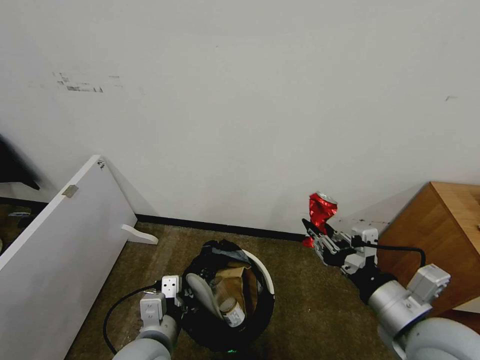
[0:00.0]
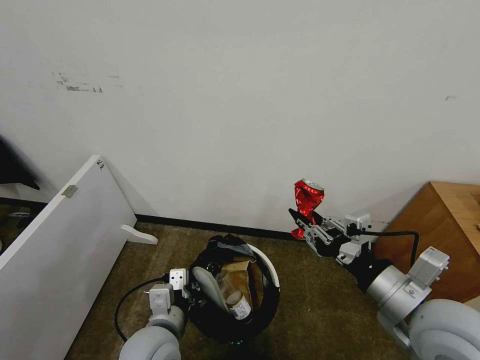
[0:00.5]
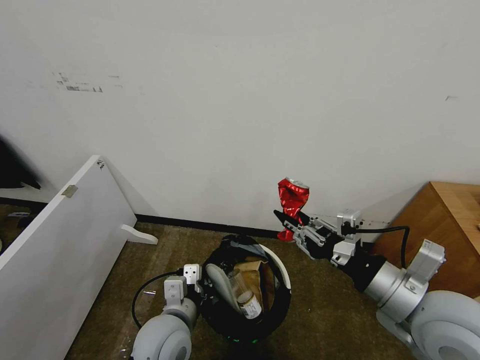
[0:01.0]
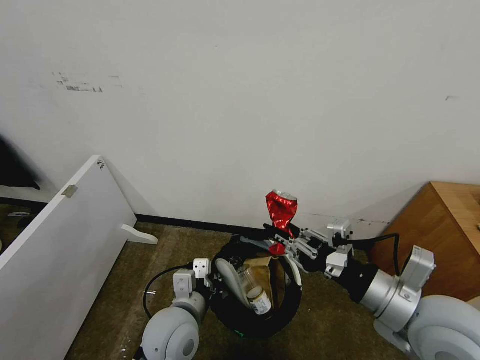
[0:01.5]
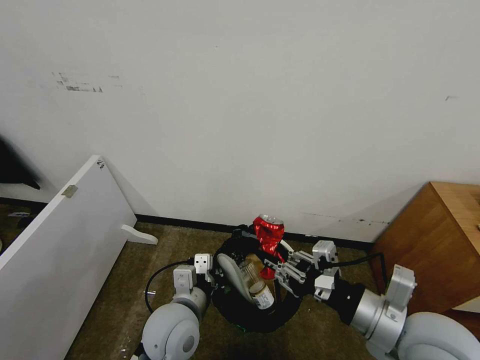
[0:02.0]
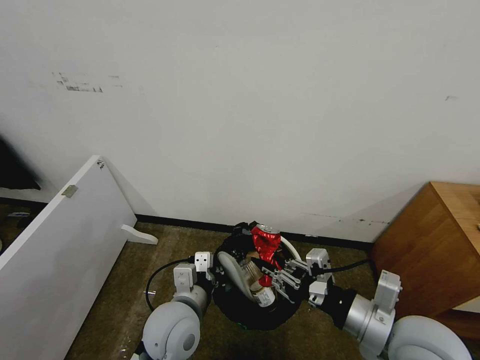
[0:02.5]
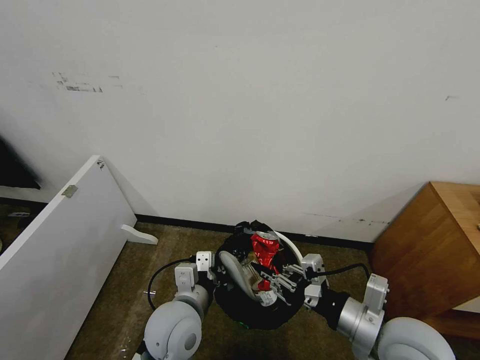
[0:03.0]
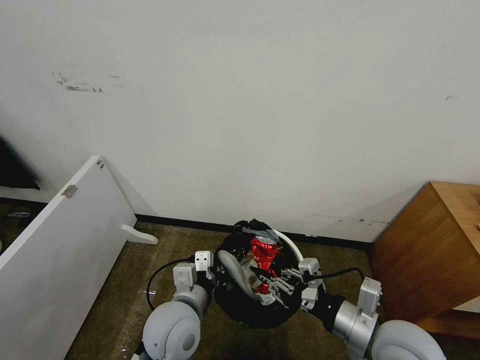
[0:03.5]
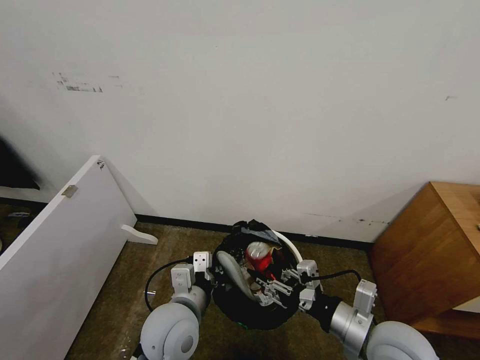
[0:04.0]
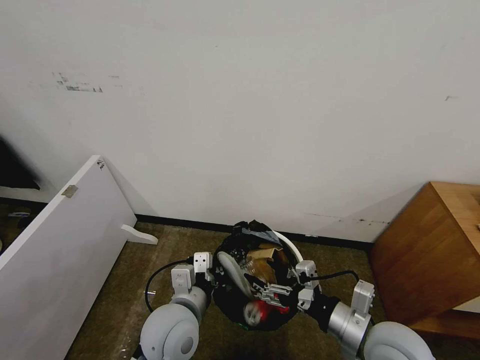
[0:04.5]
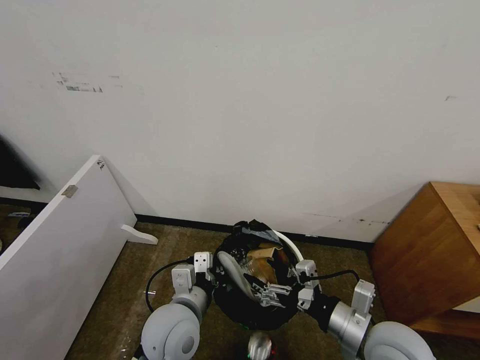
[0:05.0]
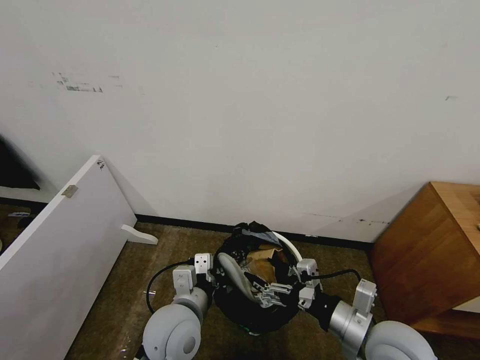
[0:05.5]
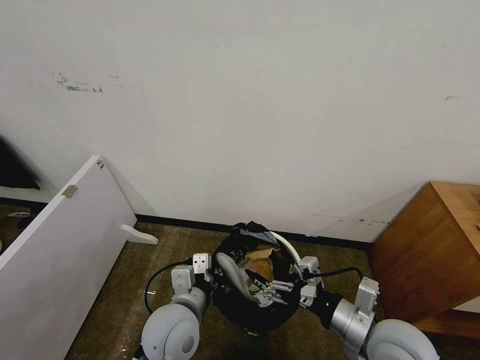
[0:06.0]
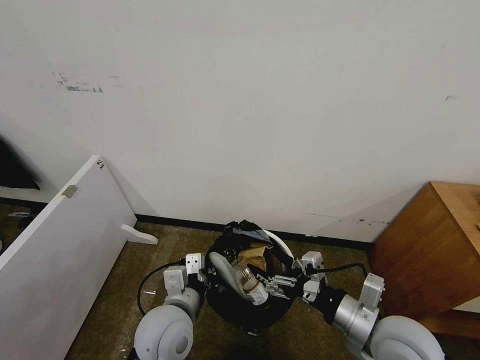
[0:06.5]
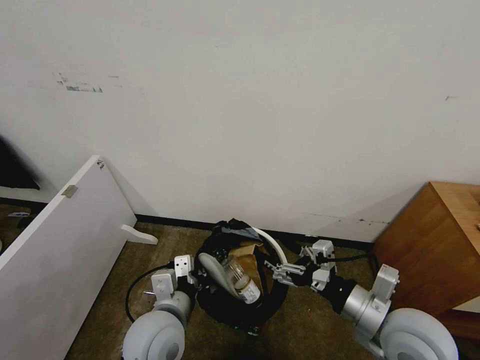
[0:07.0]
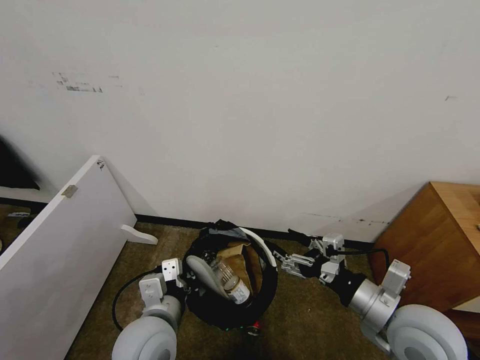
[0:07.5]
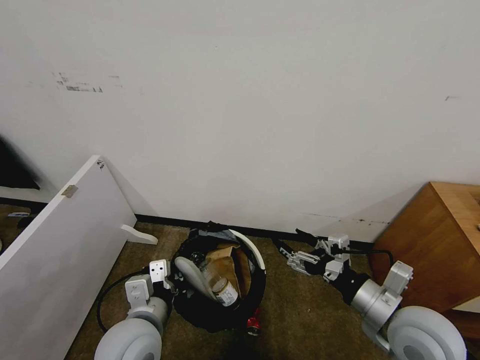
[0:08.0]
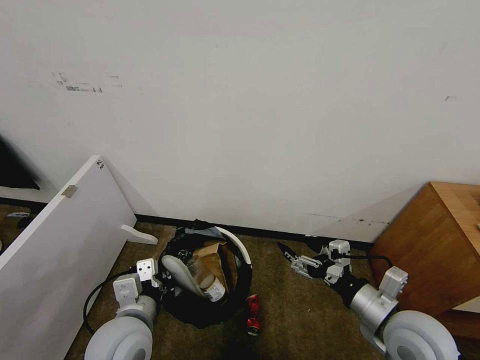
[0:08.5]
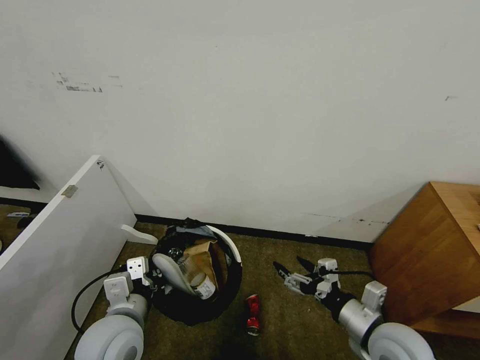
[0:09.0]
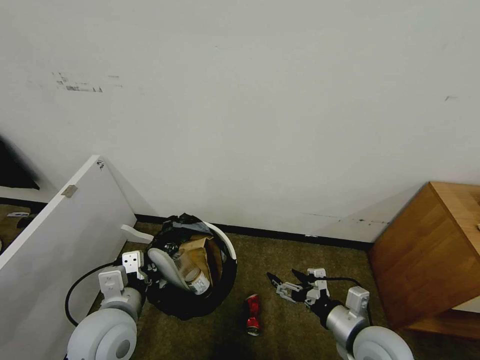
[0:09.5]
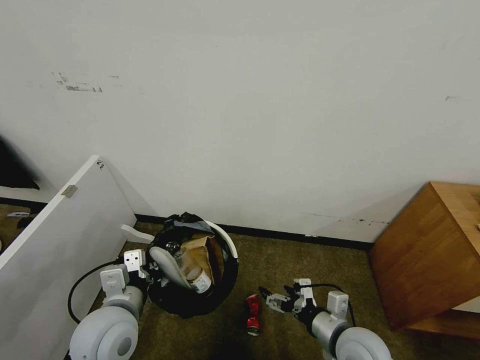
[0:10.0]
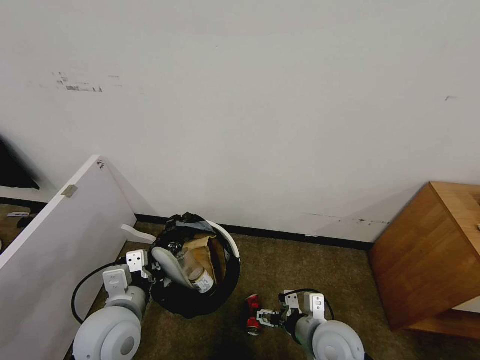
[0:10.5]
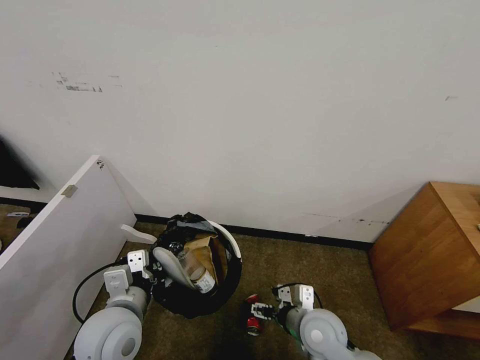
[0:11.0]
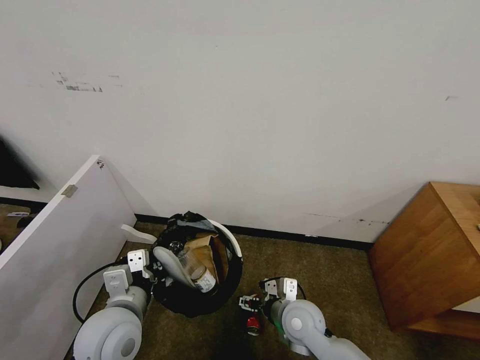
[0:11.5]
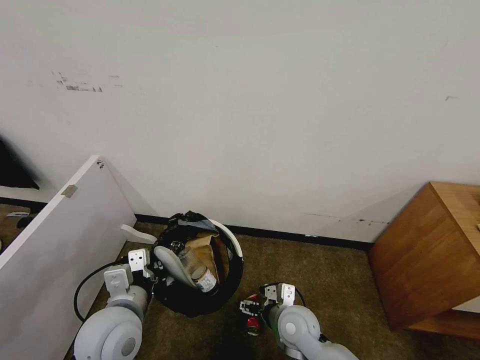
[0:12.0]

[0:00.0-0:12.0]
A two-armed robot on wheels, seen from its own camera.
Task of the whole recording: Pick up the trash bin, then pick up the garbage from the floor and place it into the trash bin.
0.0 to 2.0 s: The left gripper heads forward, covering approximately 5 cm.
2.0 to 4.0 s: The right gripper is displaced downward by approximately 10 cm.
4.0 to 6.0 s: The right gripper opens its fingers.
6.0 to 8.0 s: The left gripper travels to the left by some 5 cm.
8.0 to 10.0 s: The right gripper travels downward by approximately 10 cm.
10.0 to 12.0 s: The right gripper travels to the left, forward and downward by roughly 15 cm.

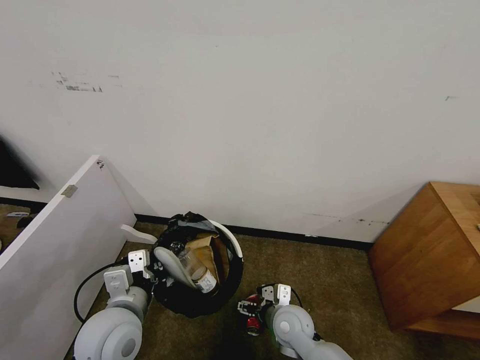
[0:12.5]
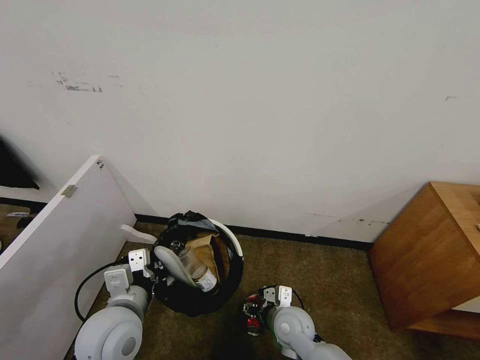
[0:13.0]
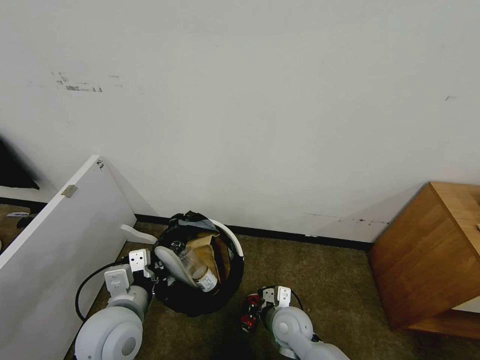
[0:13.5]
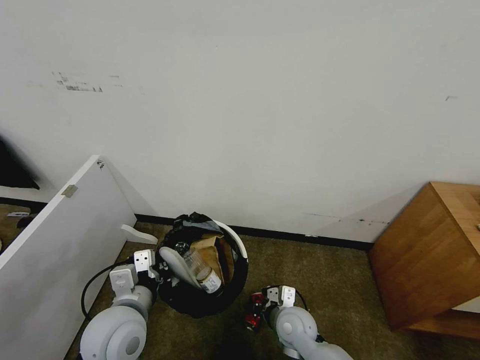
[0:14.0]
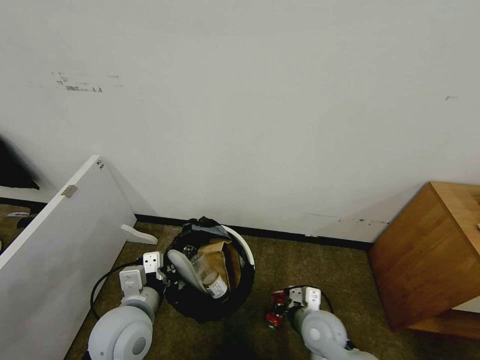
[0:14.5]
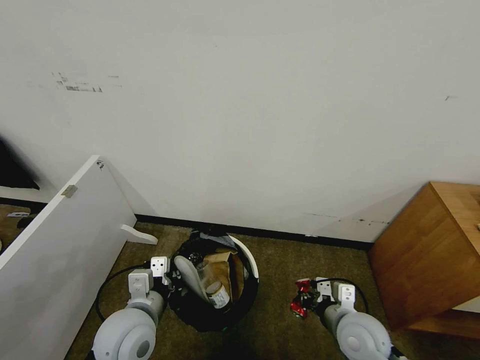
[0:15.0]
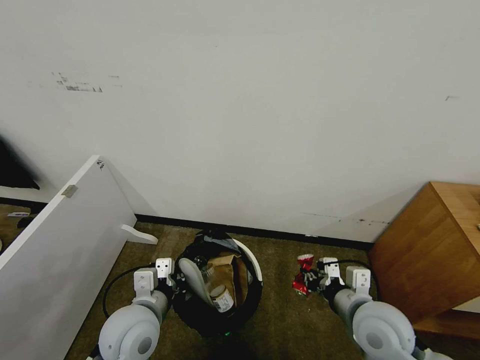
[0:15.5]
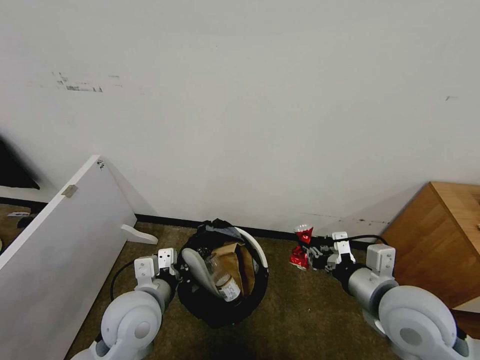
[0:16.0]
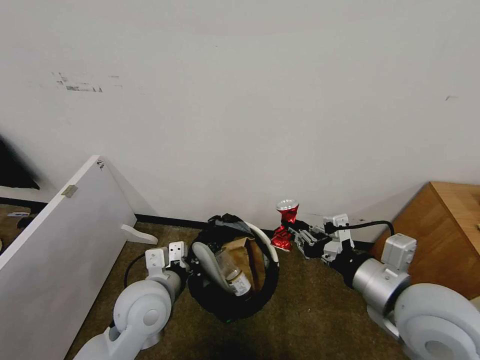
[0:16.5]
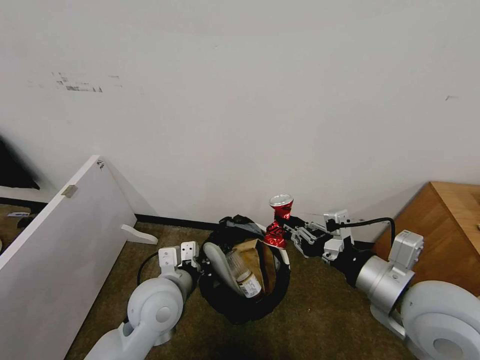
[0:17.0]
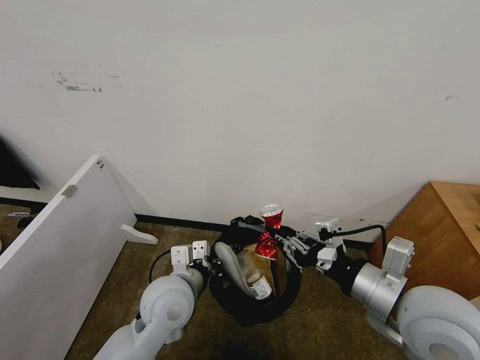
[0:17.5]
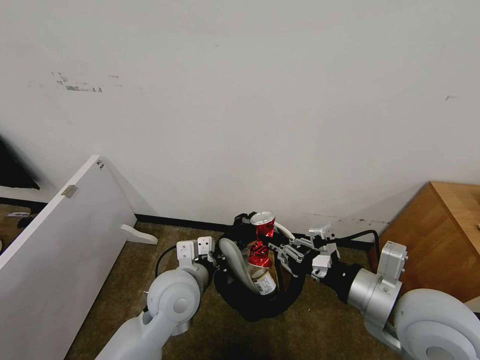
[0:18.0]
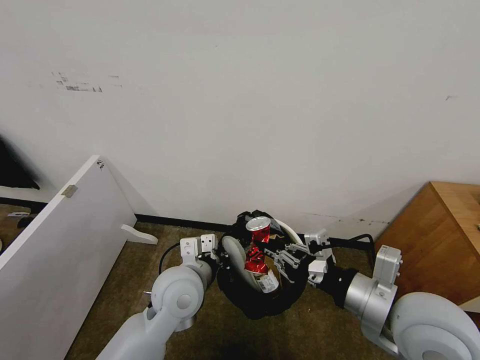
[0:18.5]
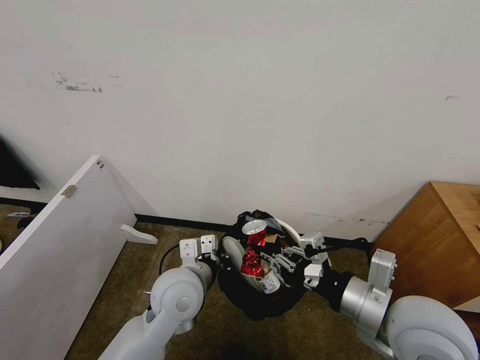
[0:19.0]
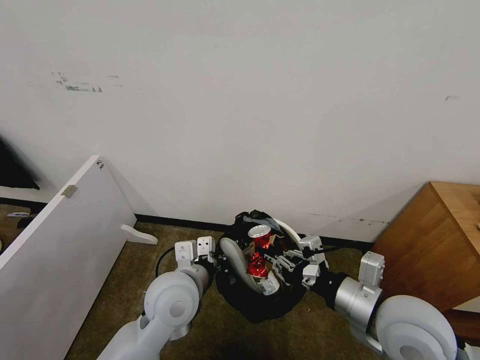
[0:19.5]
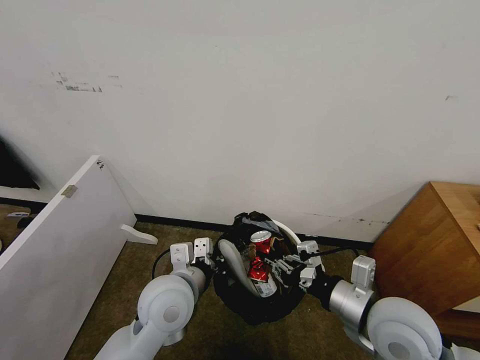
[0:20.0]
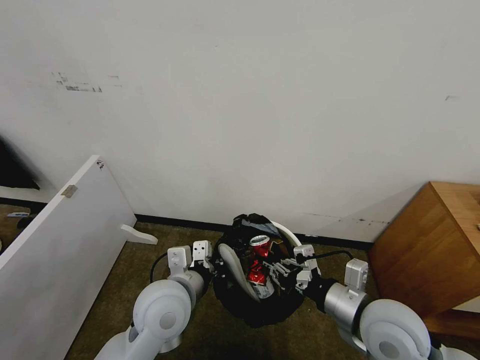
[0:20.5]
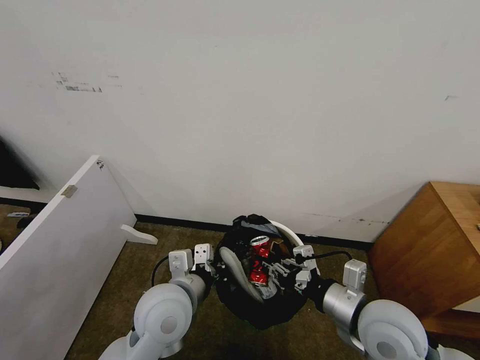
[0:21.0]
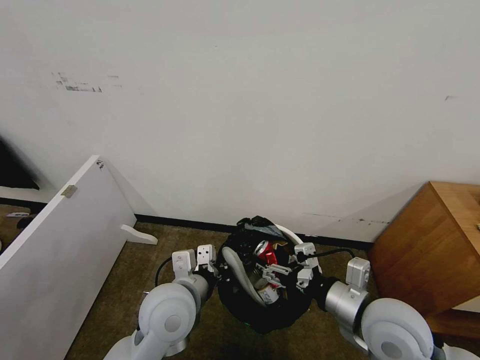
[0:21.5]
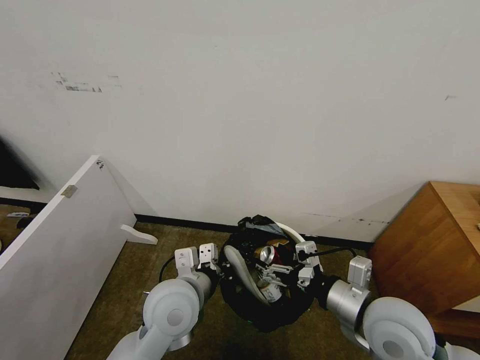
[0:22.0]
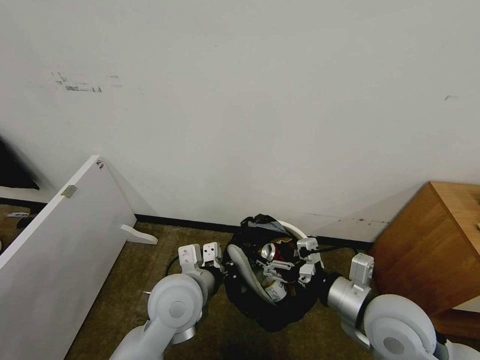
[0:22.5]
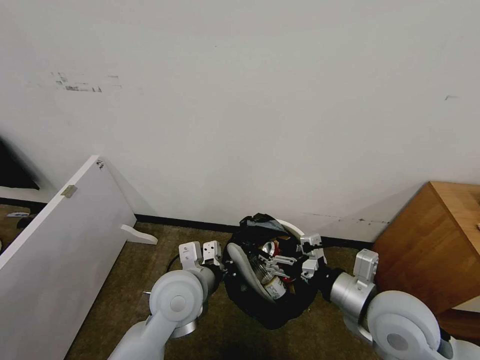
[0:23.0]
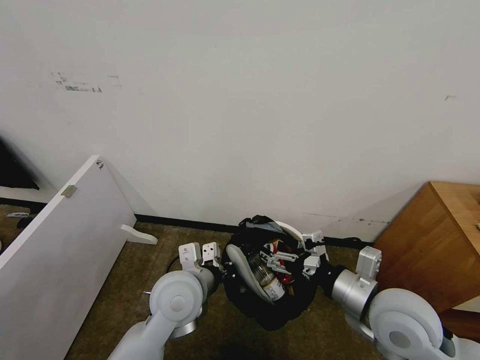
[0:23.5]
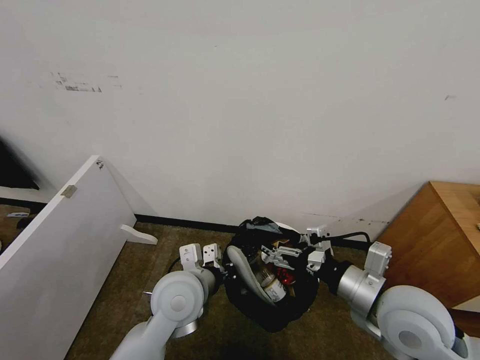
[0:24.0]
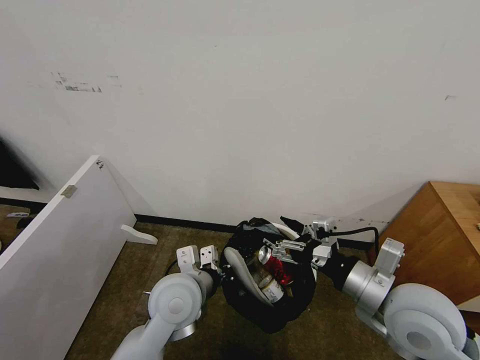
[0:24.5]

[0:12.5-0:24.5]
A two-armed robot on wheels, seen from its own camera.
Task of the whole recording: Pick up the trash bin, then pick up the garbage from the floor and place it into the trash bin.
12.5 to 14.5 s: The right gripper shifts roughly 5 cm to the right, and closes.
14.5 to 16.5 s: The right gripper goes some 25 cm upward.
16.5 to 18.5 s: The left gripper goes approximately 5 cm to the right.
18.5 to 20.5 s: The right gripper goes about 5 cm downward.
20.5 to 22.5 s: The right gripper opens up.
22.5 to 24.5 s: The grippers stay close to where they were, moving slightly.

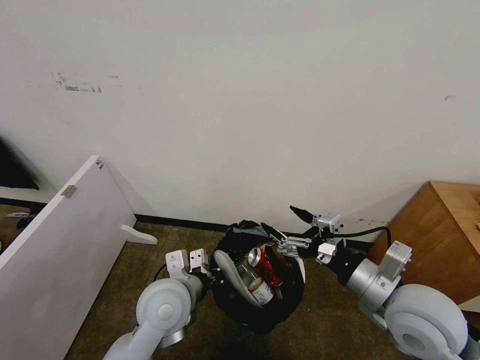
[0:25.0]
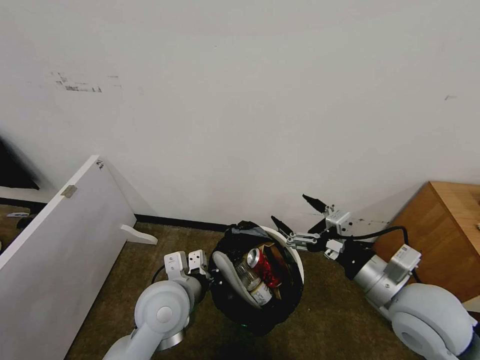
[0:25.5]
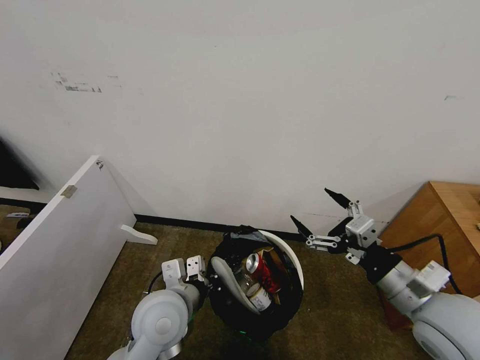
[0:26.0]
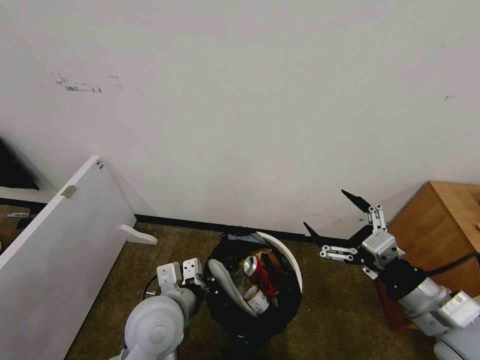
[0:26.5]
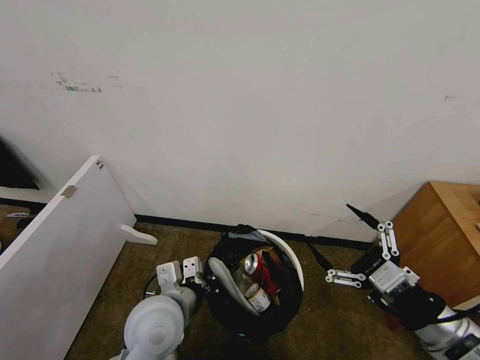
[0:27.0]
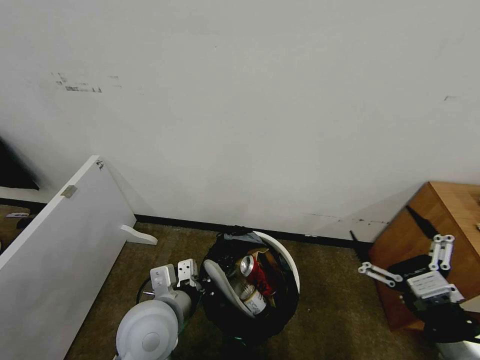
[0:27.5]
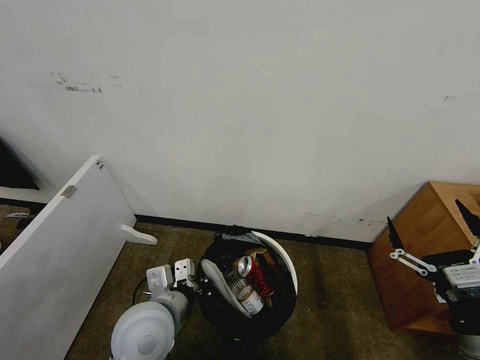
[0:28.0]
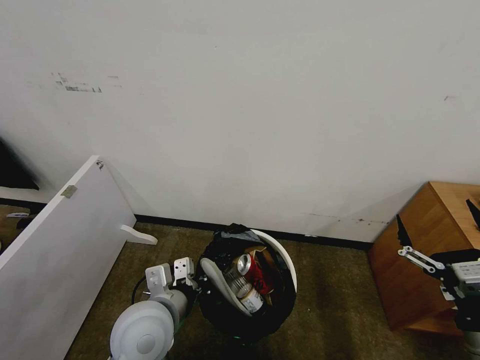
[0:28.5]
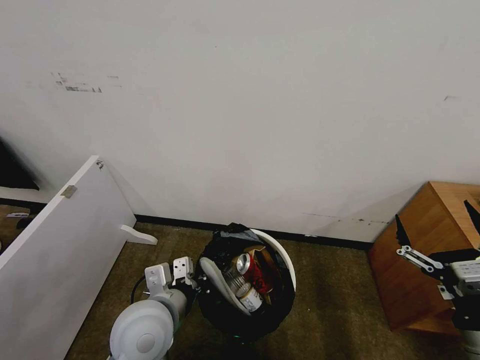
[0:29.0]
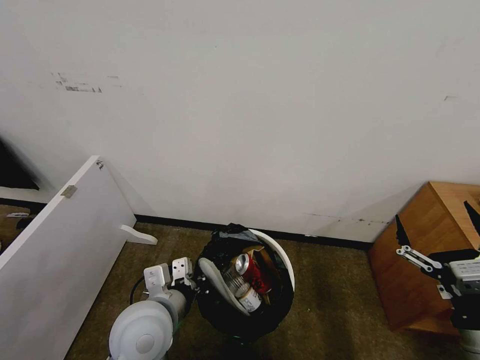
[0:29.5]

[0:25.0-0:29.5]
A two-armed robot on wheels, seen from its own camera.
Task of the whole recording: Pick up the trash bin, then pick up the garbage from the floor and place it into the trash bin.
25.0 to 27.0 s: The right gripper travels backward and to the right by some 10 cm.
